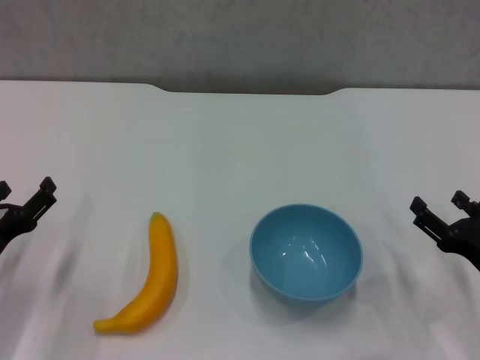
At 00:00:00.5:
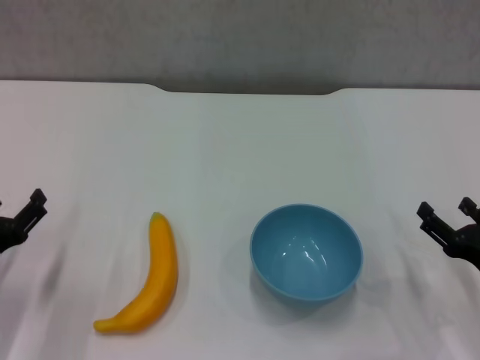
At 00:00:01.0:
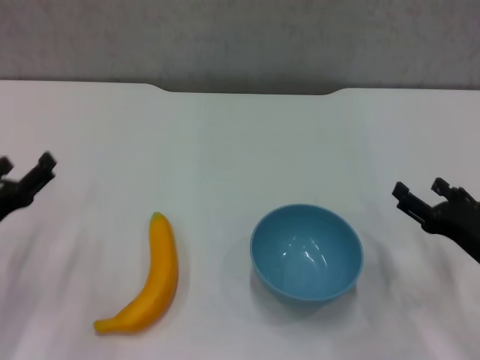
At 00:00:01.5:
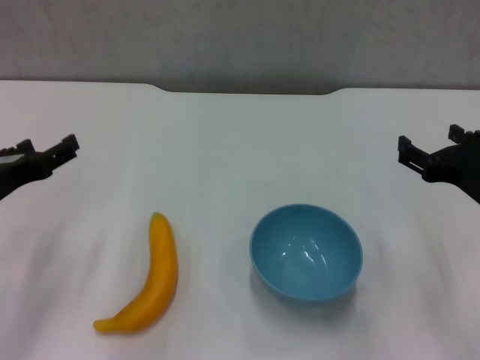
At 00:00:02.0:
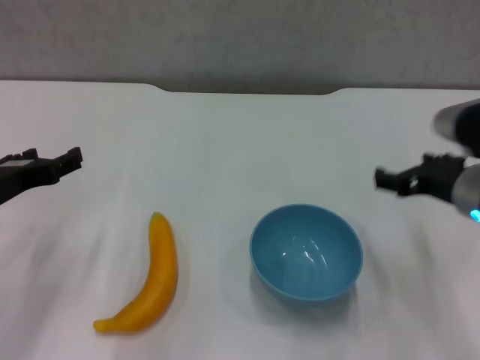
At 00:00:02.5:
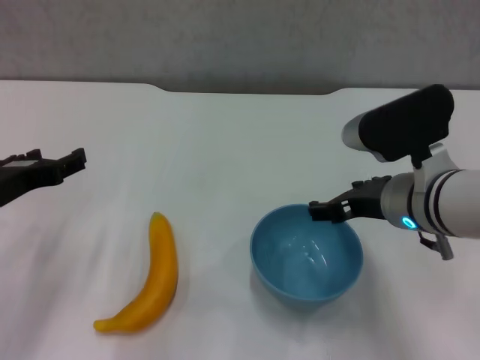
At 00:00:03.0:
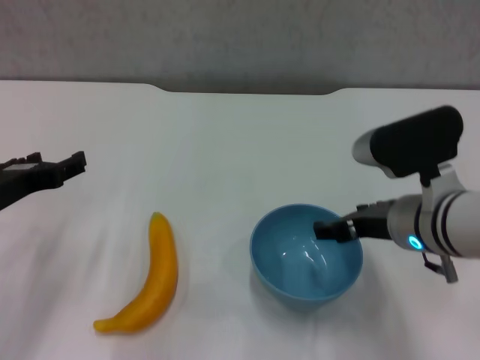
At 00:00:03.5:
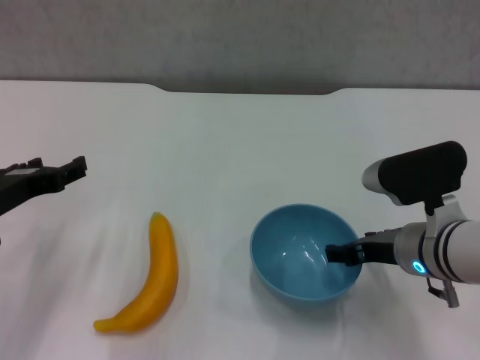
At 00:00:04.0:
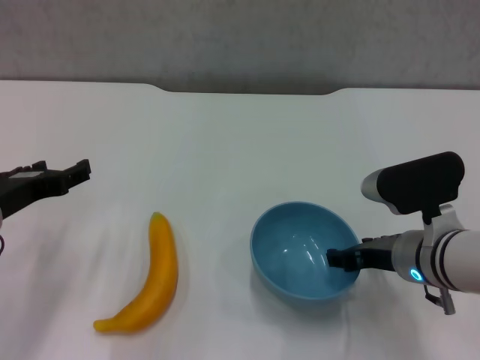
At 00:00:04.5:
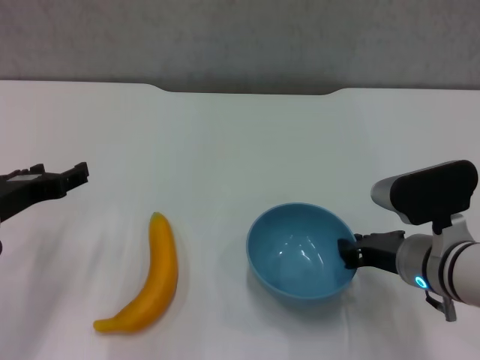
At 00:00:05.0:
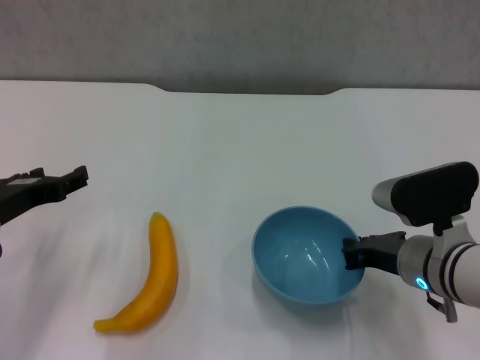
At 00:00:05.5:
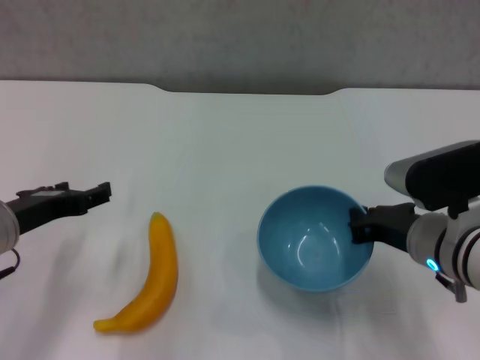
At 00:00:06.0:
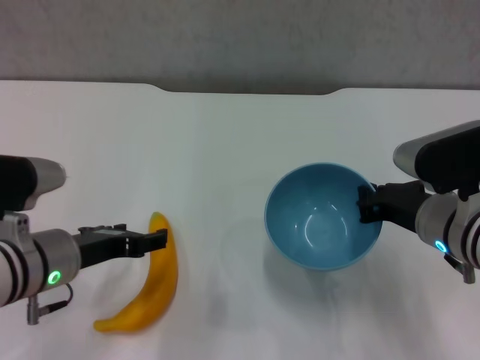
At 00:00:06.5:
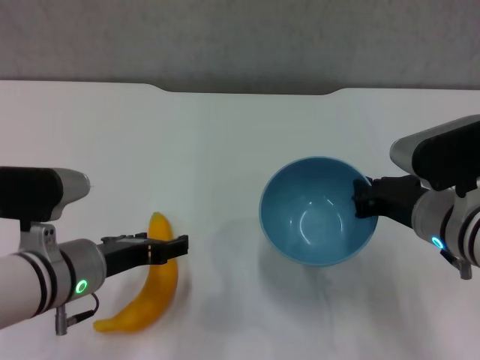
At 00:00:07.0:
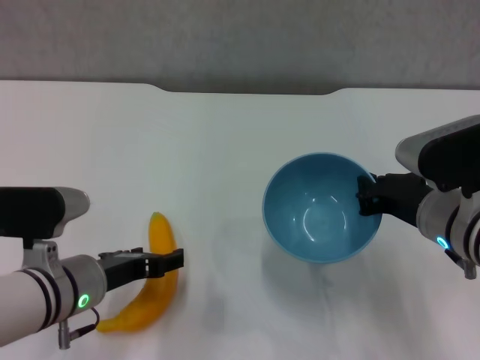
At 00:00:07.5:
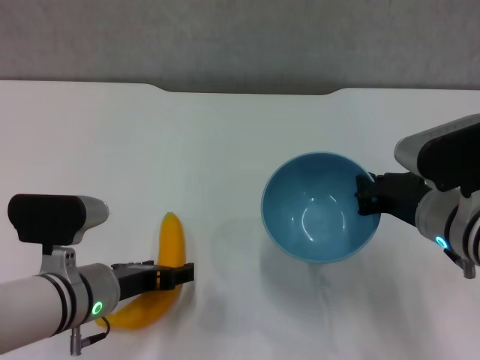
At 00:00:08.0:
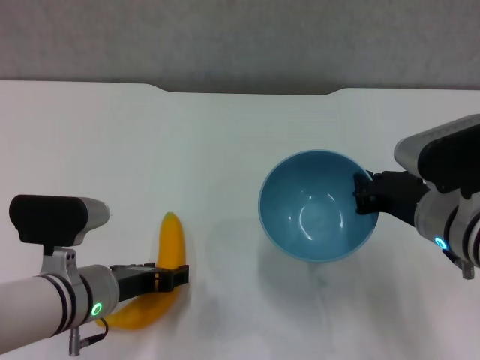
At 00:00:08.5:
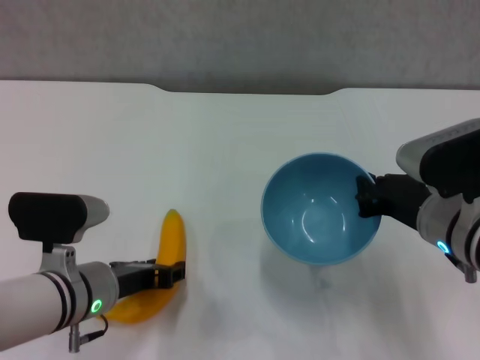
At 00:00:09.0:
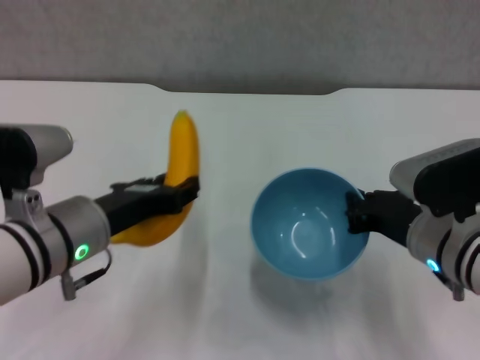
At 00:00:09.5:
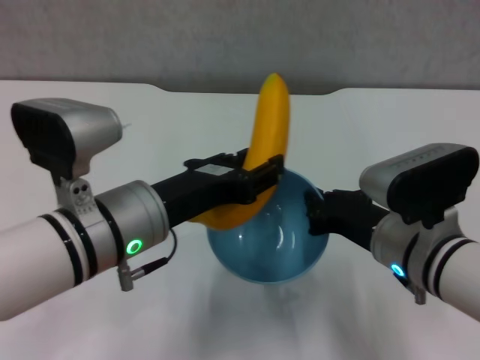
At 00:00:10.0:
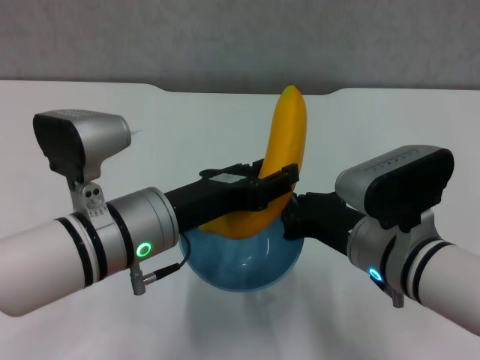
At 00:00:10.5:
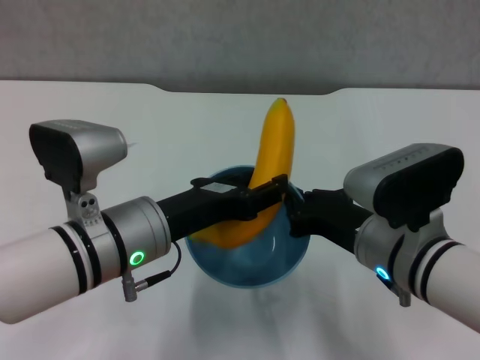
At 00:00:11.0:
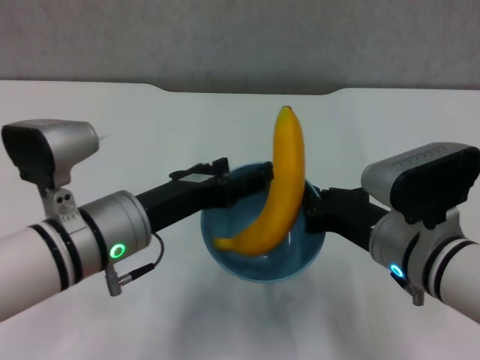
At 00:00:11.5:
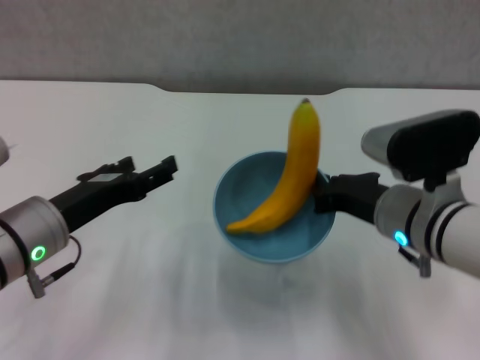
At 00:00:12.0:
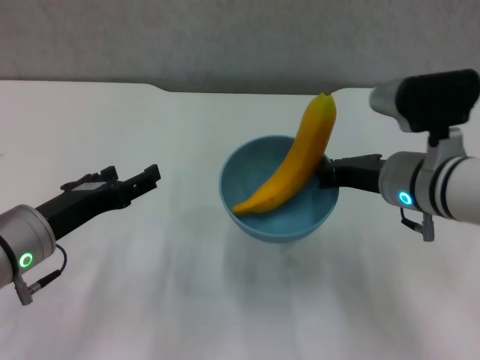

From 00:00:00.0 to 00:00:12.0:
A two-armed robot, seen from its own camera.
Step, from 00:00:00.0 to 00:00:04.5: Grasp the blue bowl with right gripper.
Step, from 00:00:06.0 to 00:00:08.0: Grasp the banana with left gripper.
Step, from 00:00:08.5 to 00:00:11.0: Place the banana in the blue bowl with left gripper.
From 00:00:00.0 to 00:00:02.0: The left gripper is displaced upward by about 10 cm. The right gripper moves upward, to the left and forward, approximately 15 cm.
From 00:00:02.0 to 00:00:04.0: The right gripper travels downward by roughly 5 cm.
From 00:00:04.0 to 00:00:06.0: The left gripper is displaced to the right by some 5 cm. The right gripper closes.
From 00:00:06.0 to 00:00:08.0: The left gripper ends up some 5 cm from where it was.
From 00:00:08.0 to 00:00:10.0: The right gripper goes roughly 5 cm to the left. Meanwhile the left gripper goes roughly 10 cm upward and to the right, and closes its fingers.
From 00:00:10.0 to 00:00:12.0: The left gripper is displaced to the left by roughly 10 cm, and opens its fingers. Meanwhile the right gripper shifts roughly 5 cm forward.

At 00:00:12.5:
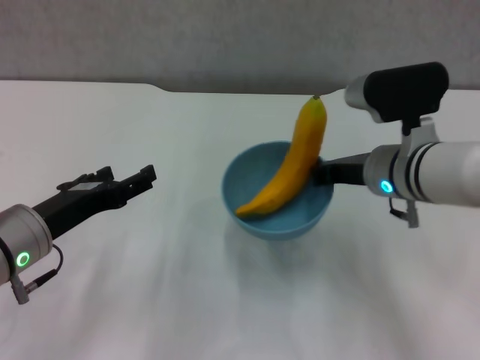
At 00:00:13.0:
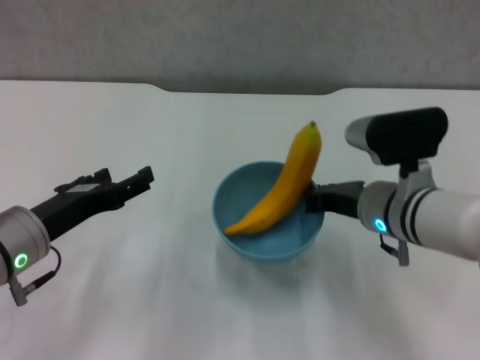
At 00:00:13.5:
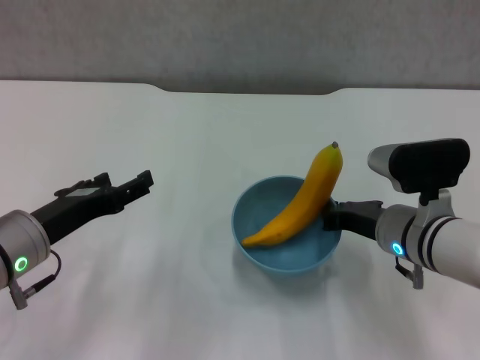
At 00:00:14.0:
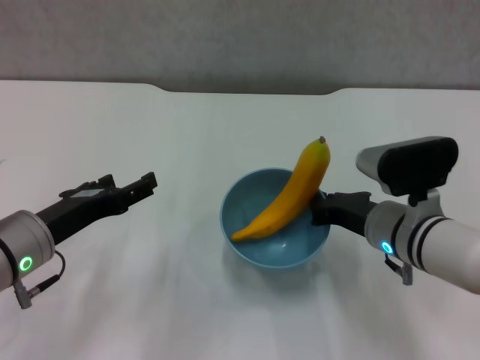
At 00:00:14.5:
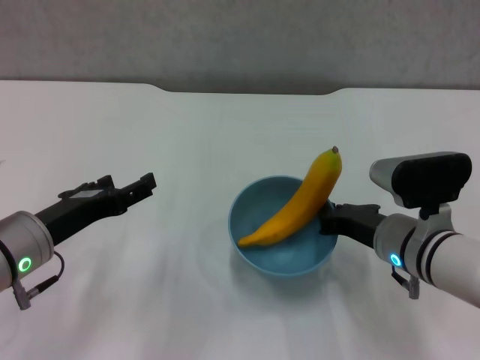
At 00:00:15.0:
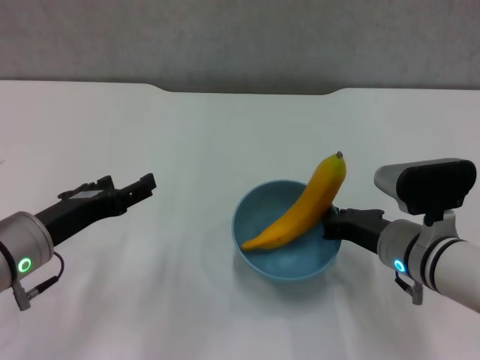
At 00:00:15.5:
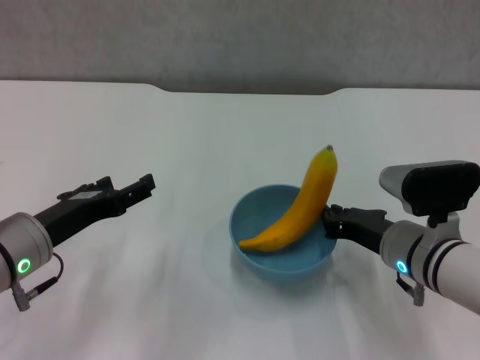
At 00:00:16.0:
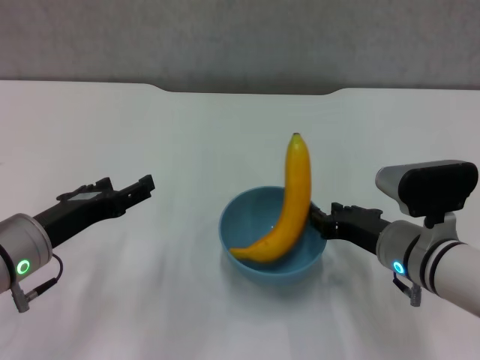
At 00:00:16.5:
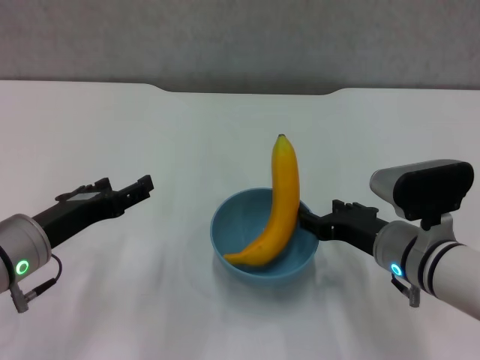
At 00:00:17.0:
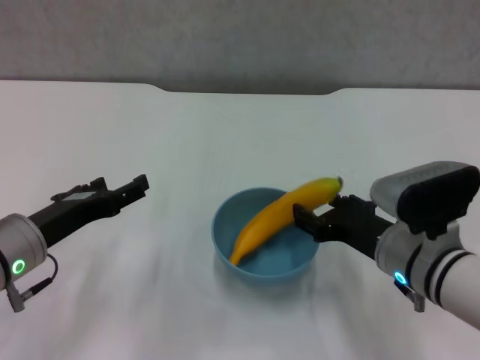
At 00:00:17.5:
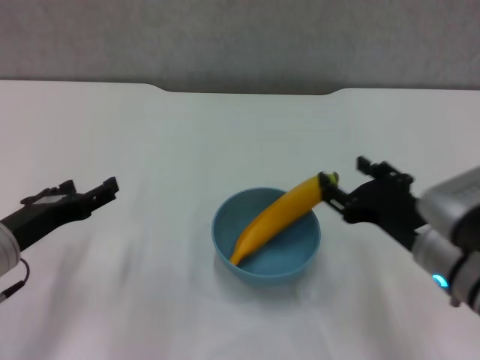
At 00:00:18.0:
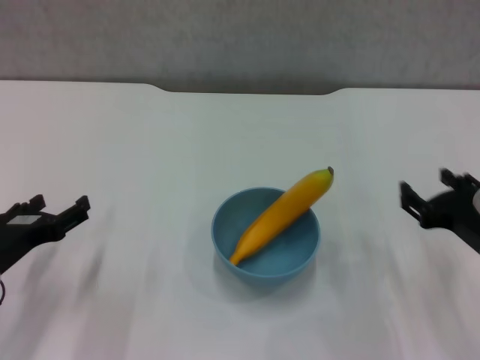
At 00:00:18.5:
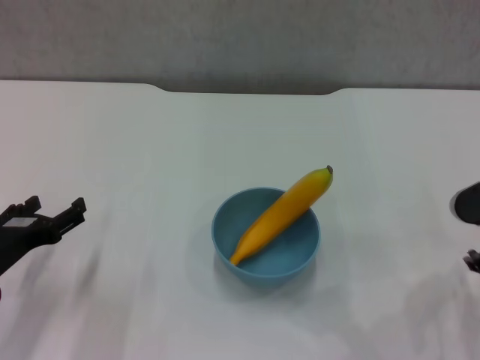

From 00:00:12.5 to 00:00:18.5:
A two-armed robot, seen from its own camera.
Step, from 00:00:12.5 to 00:00:17.0: Place the bowl on the table with right gripper.
From 00:00:12.5 to 00:00:14.5: The right gripper moves downward and backward, roughly 10 cm.
From 00:00:14.5 to 00:00:16.5: The right gripper opens its fingers.
From 00:00:16.5 to 00:00:18.5: The right gripper shifts about 10 cm to the right, while the left gripper travels to the left by about 5 cm.
